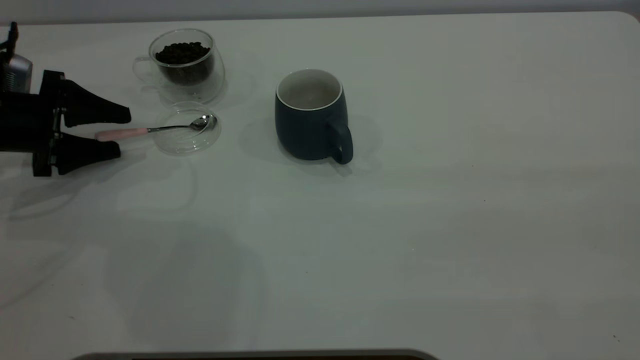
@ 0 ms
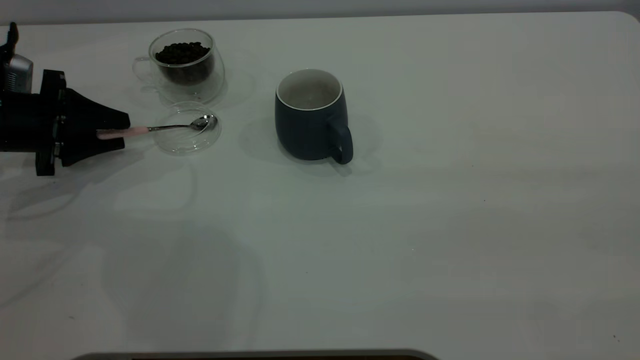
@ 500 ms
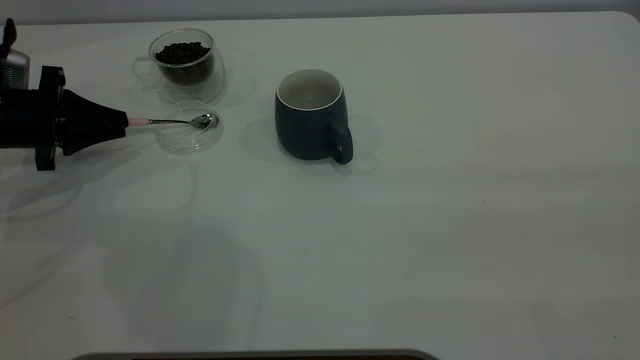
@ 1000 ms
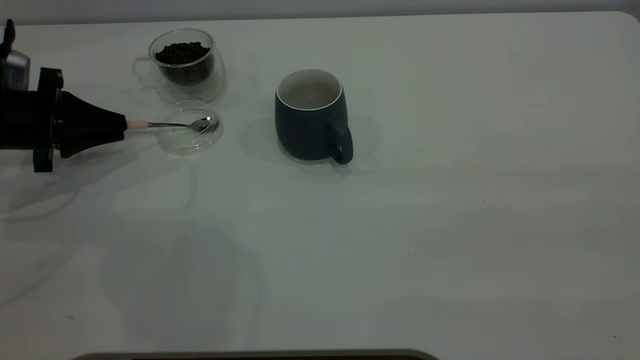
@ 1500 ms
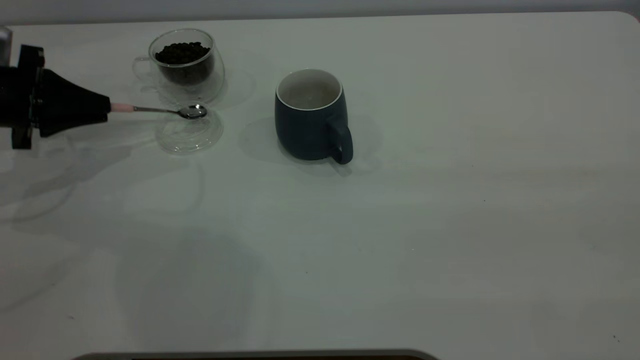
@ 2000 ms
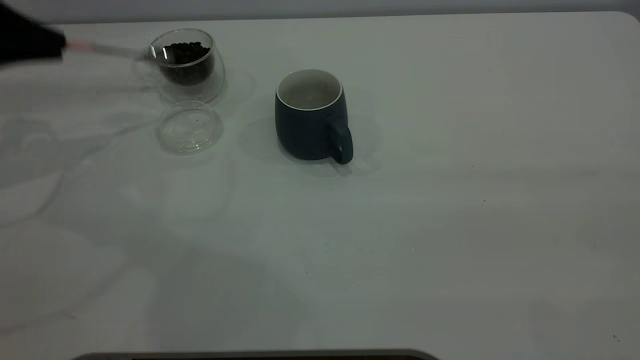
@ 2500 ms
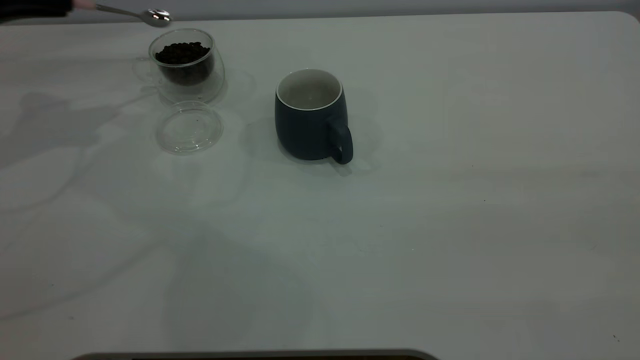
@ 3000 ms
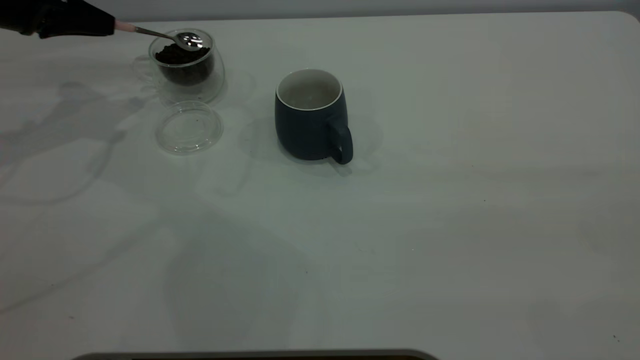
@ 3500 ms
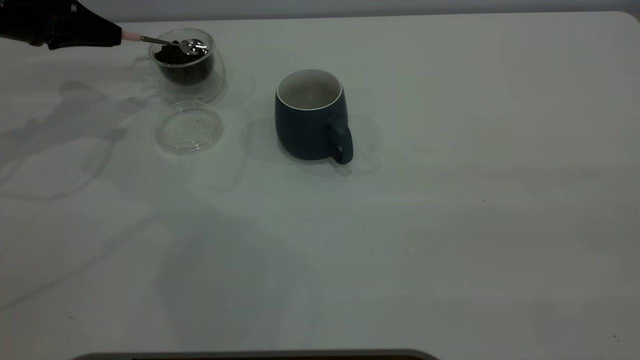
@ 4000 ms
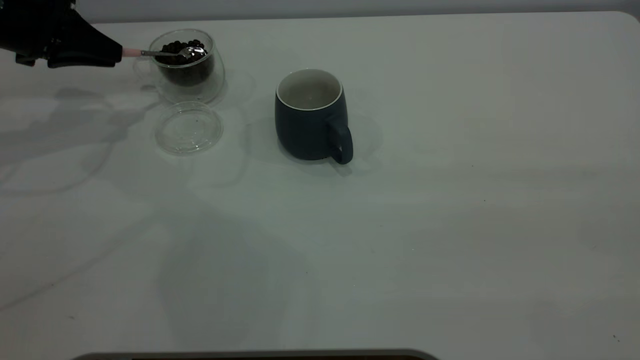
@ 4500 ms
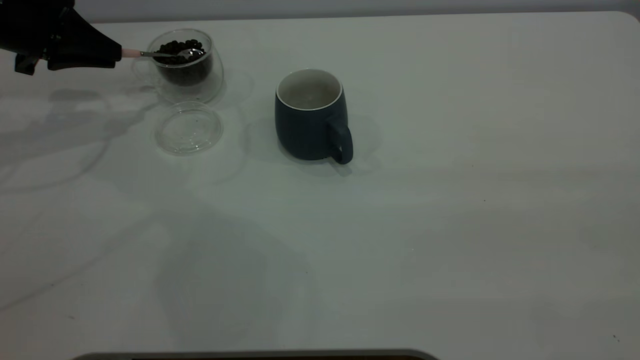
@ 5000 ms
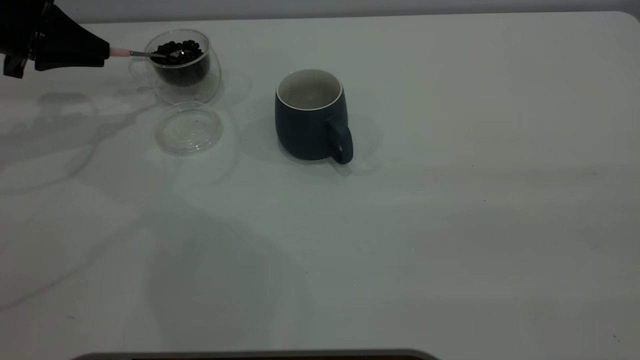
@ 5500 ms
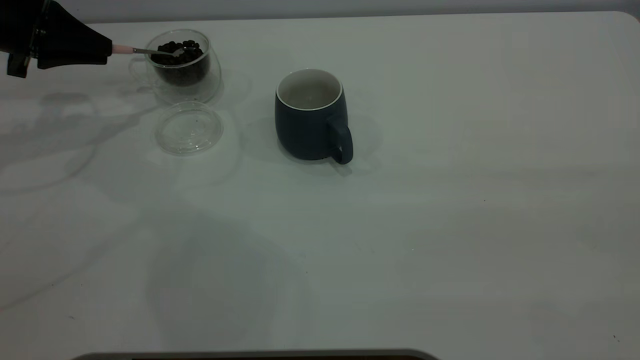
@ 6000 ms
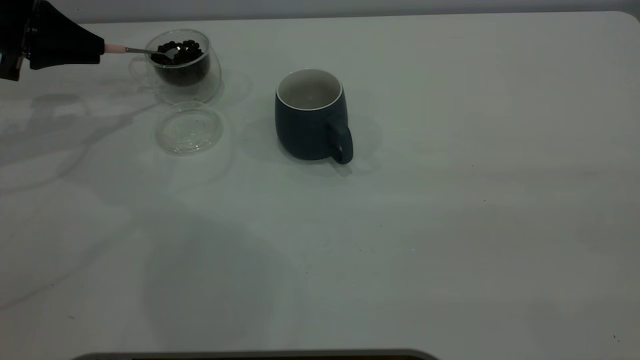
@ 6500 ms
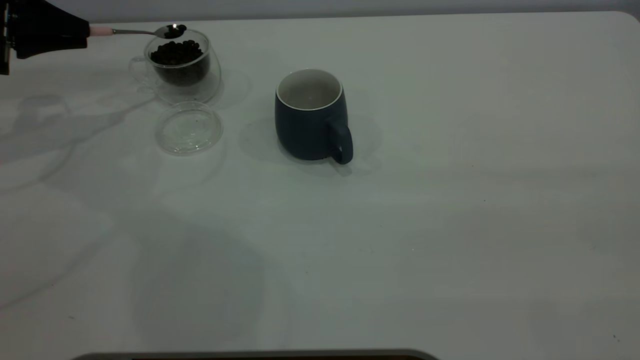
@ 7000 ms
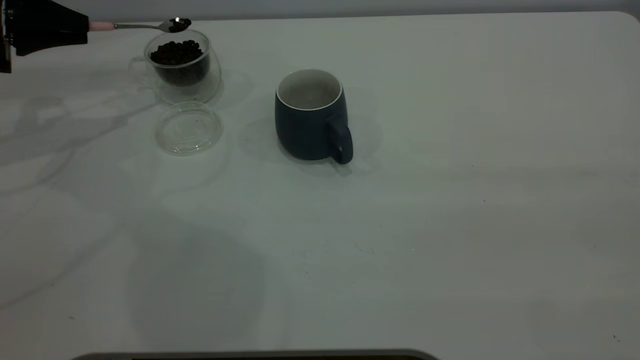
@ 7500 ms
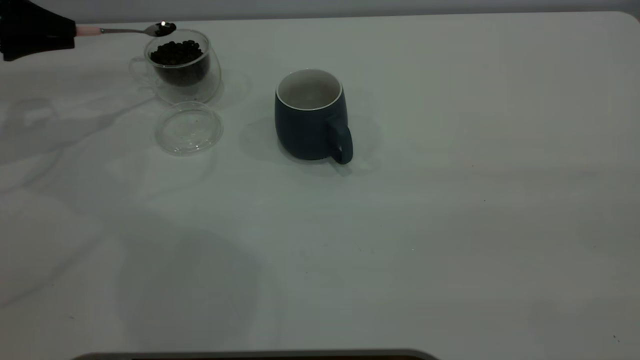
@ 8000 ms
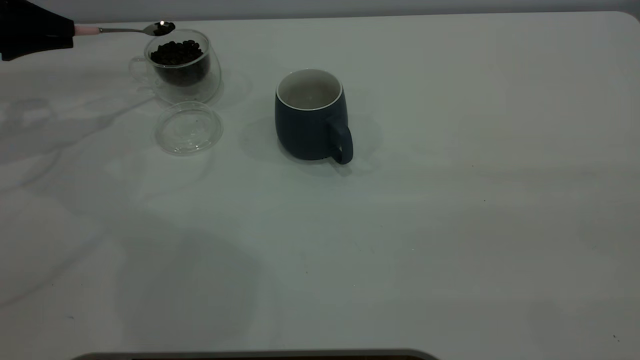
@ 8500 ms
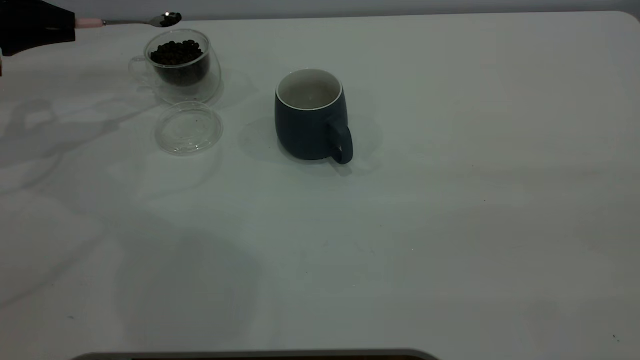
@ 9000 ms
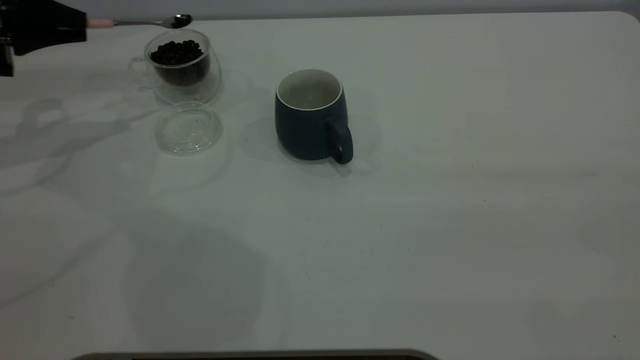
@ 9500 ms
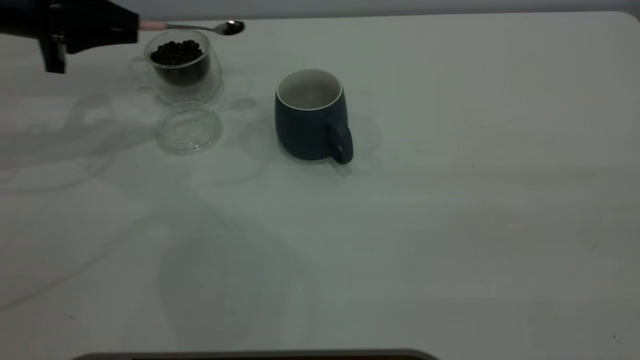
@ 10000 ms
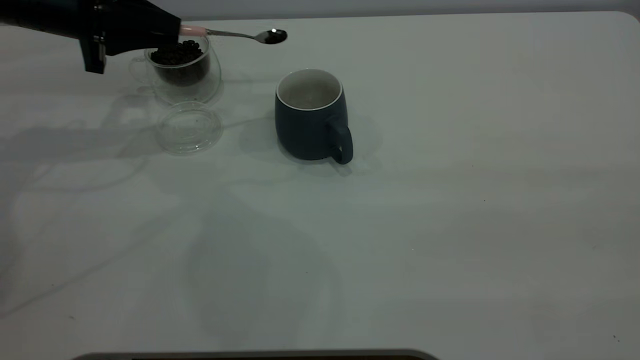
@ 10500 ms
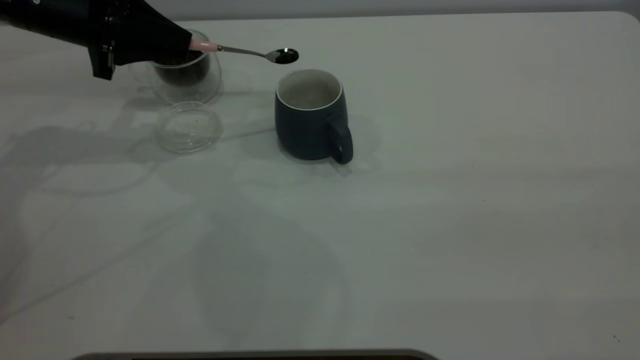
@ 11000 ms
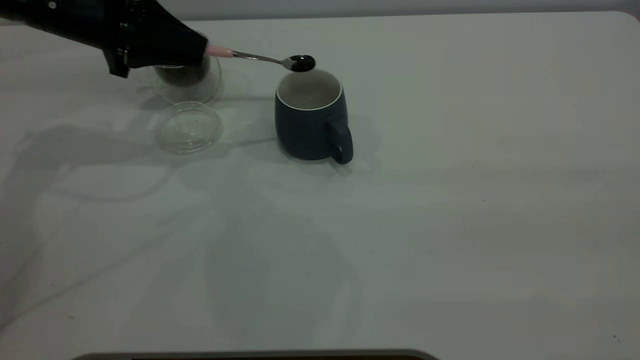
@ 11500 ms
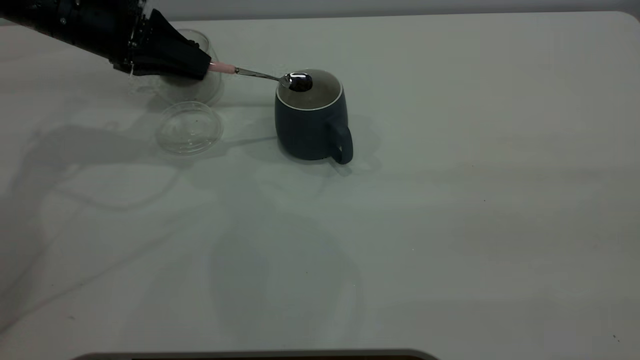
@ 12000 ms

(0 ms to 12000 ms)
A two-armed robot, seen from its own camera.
Task of the whole recording: the right gripper place the grey cup in the center of the table, the left gripper take the pink spoon from the cup lid and scoop out the coffee beans from the coffee cup and put them into the grey cup, the left gripper put the spoon back into the cup lid.
Step, 0 ms - 2000 ms: Pick up the spoon.
0 ms - 2000 ms: The left gripper closes.
2000 ms - 4000 ms: The left gripper is displaced forward and upward by some 10 cm.
6000 ms - 8000 ms: The grippers stay close to where they were, moving slightly.
8000 ms - 10000 ms: The left gripper goes about 10 cm to the right.
10000 ms - 12000 ms: The left gripper goes roughly 5 cm to the right.

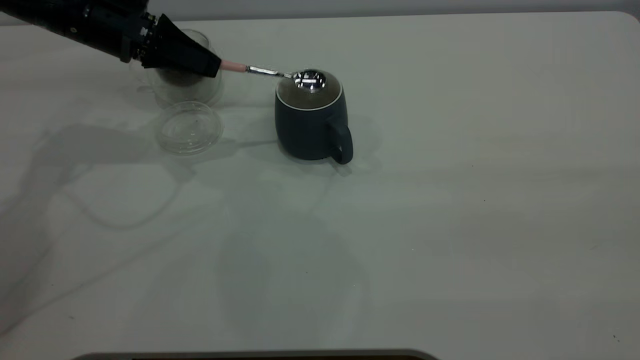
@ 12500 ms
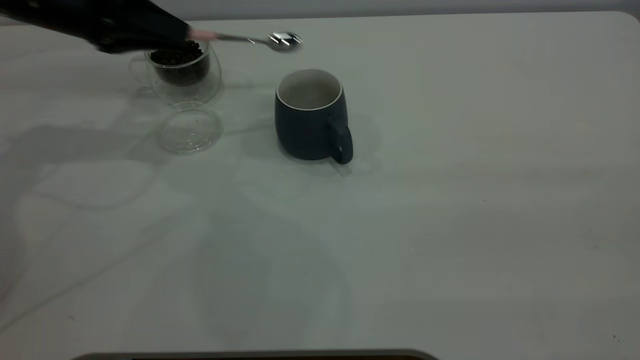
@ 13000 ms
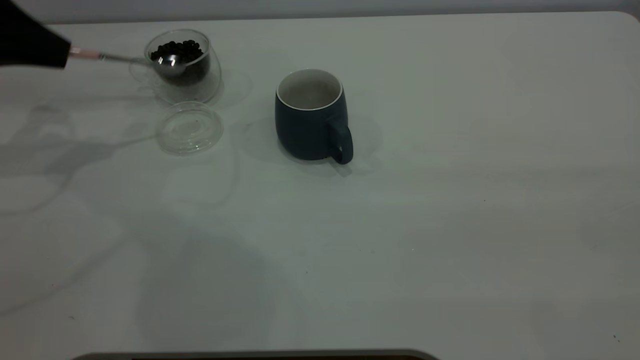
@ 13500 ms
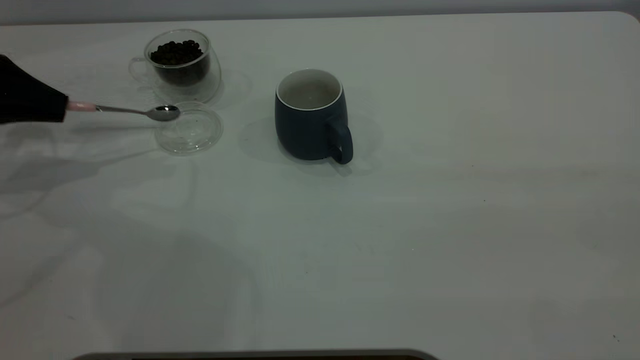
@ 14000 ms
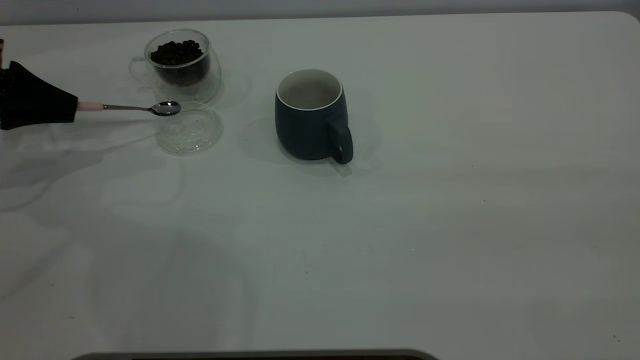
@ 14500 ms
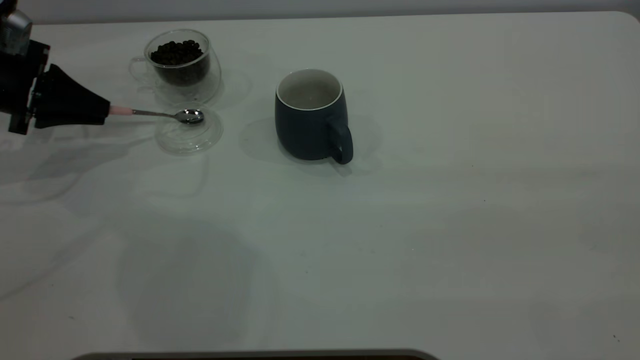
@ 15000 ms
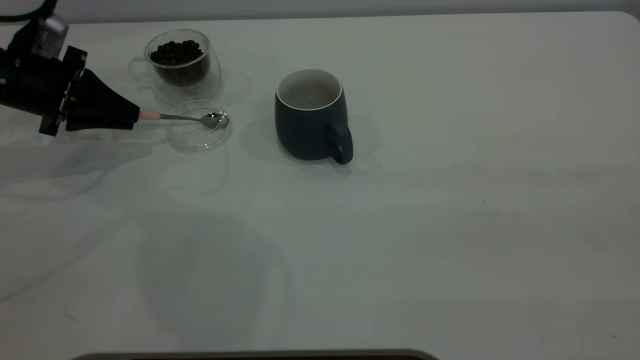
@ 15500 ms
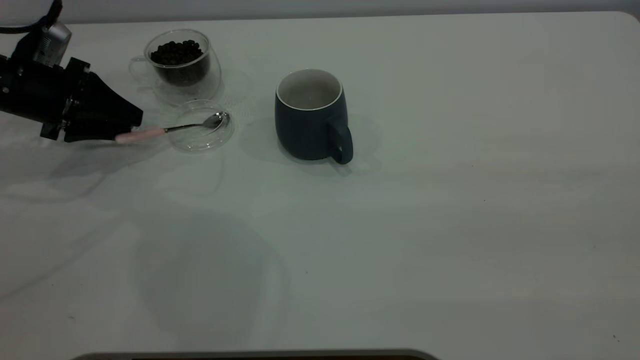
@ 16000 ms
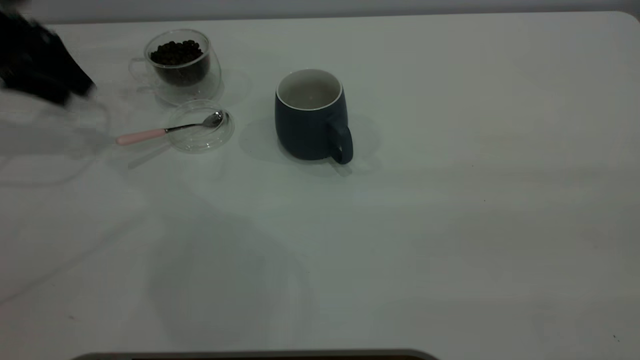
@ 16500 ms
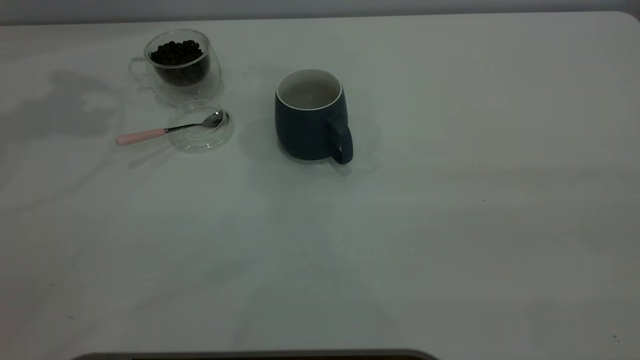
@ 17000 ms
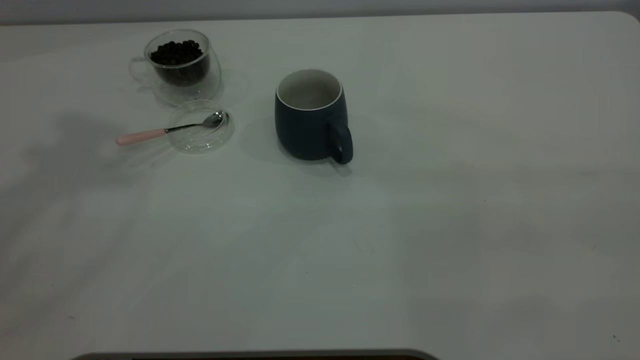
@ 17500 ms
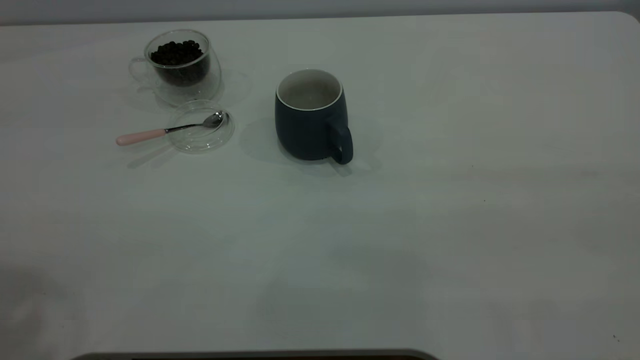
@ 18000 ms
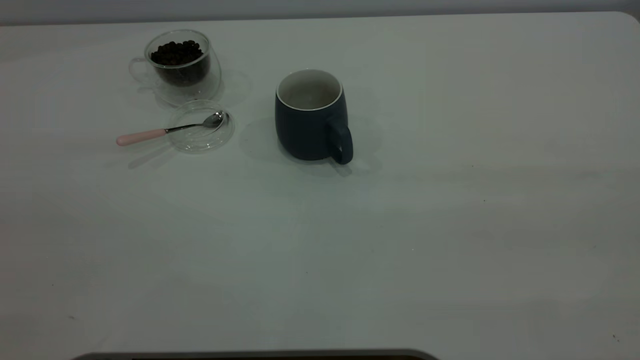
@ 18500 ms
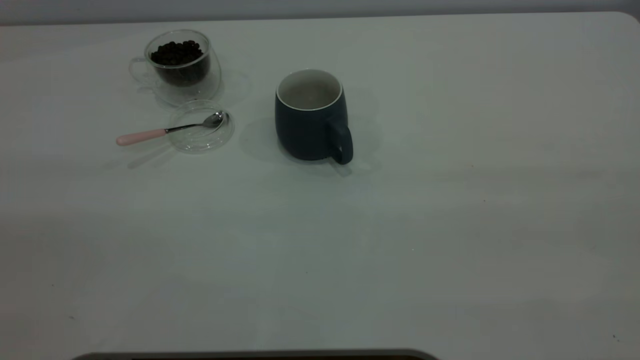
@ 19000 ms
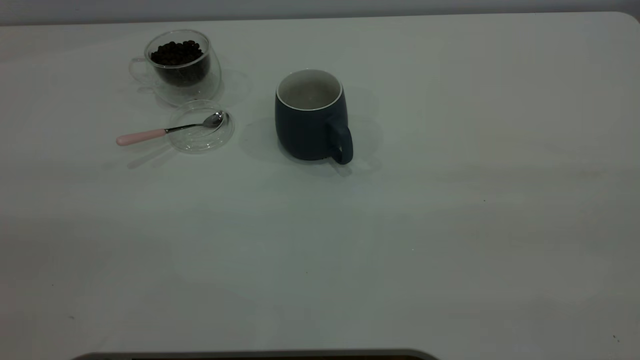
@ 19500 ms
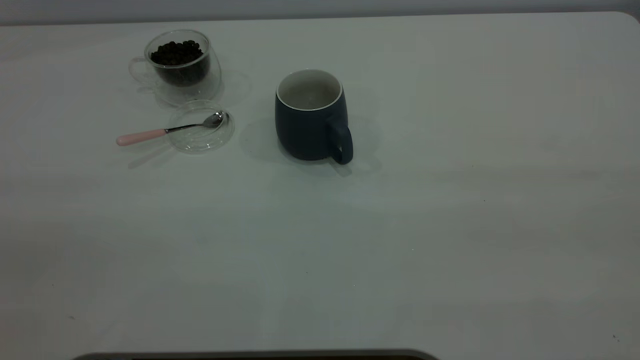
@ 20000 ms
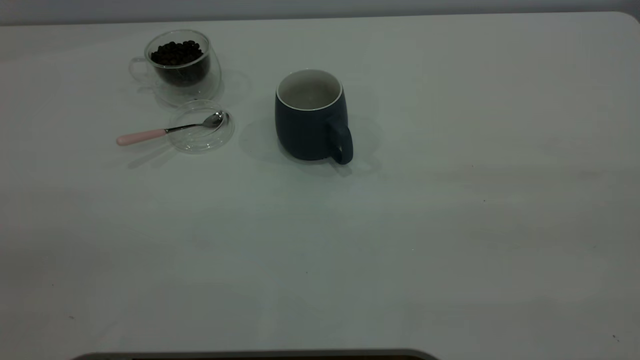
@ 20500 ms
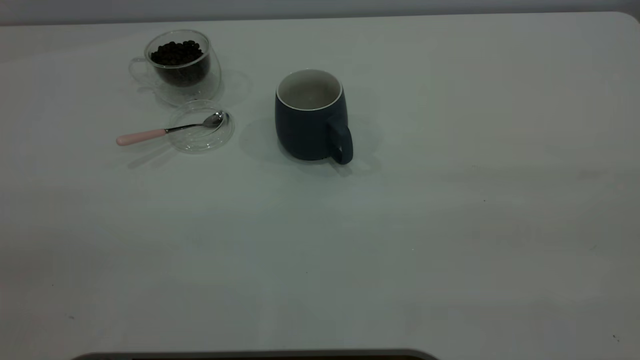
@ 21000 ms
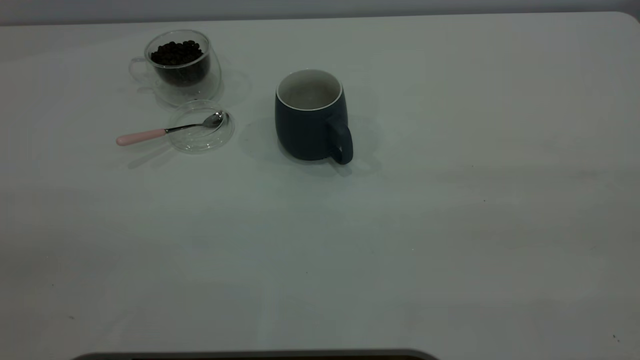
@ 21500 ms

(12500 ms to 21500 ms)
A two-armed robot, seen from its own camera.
Task of the whole recording: the right gripper place the grey cup in the center of the table, the left gripper take the pink spoon from the cup lid and scoop out the coffee beans from the coffee cup and put them into the grey cup, the left gripper put the spoon back into the cup lid.
Step, 13000 ms - 16000 ms: Place the spoon back in its original place.
12500 ms - 14500 ms: The left gripper heads to the left, covering some 15 cm.
14500 ms - 17000 ms: The left gripper moves upward, some 30 cm, and opens its fingers.
